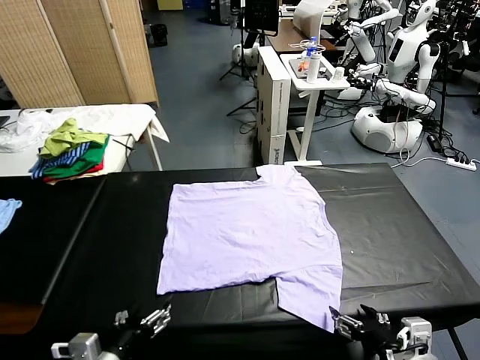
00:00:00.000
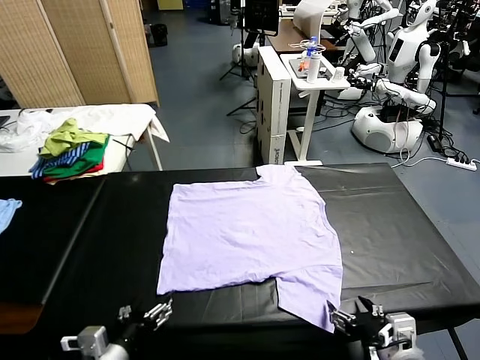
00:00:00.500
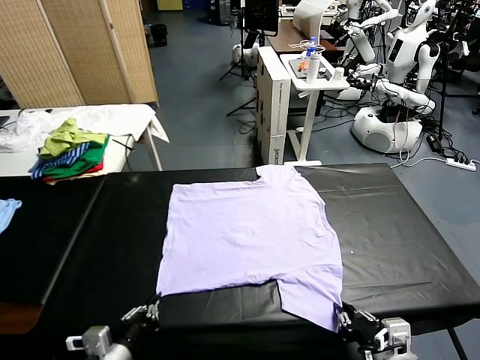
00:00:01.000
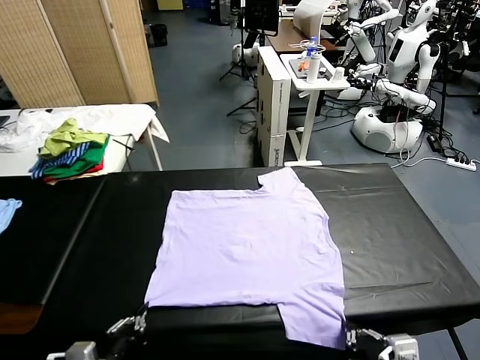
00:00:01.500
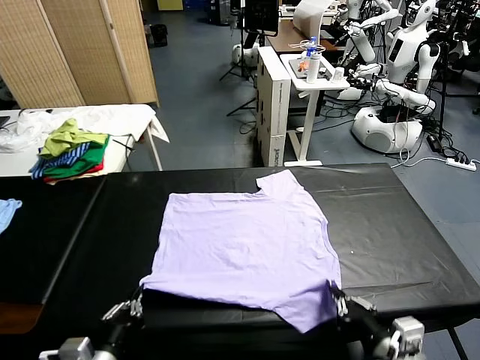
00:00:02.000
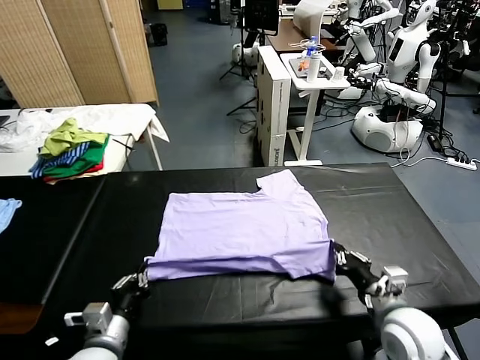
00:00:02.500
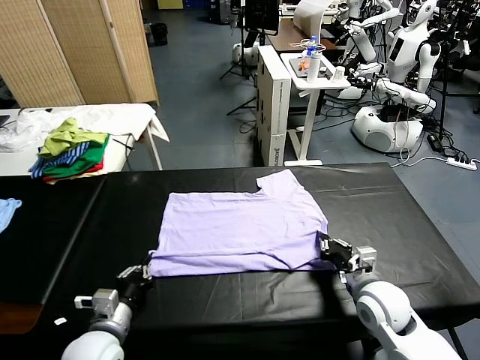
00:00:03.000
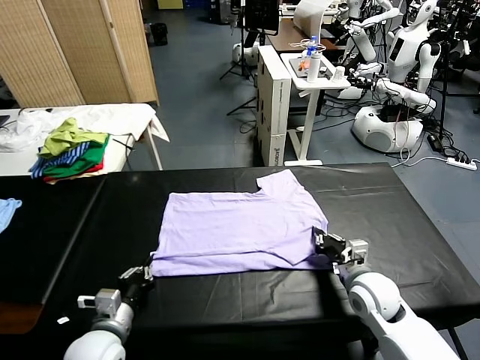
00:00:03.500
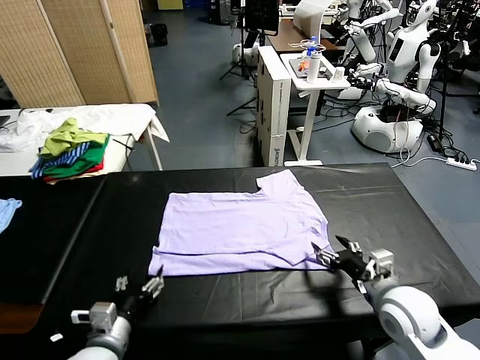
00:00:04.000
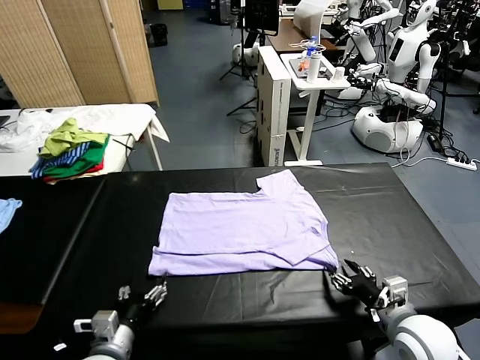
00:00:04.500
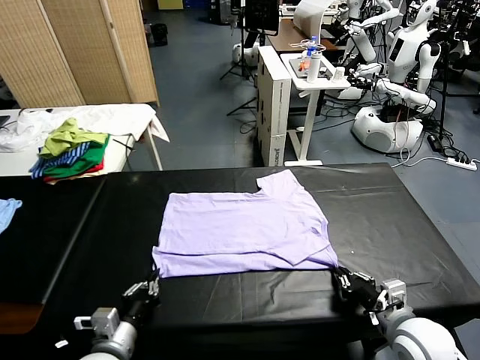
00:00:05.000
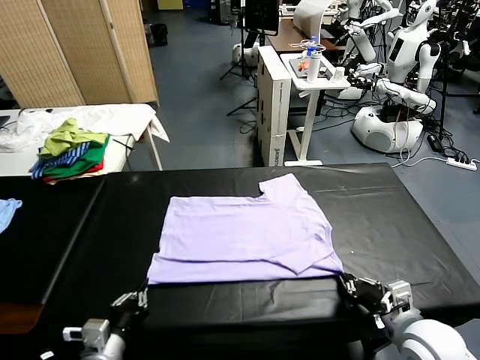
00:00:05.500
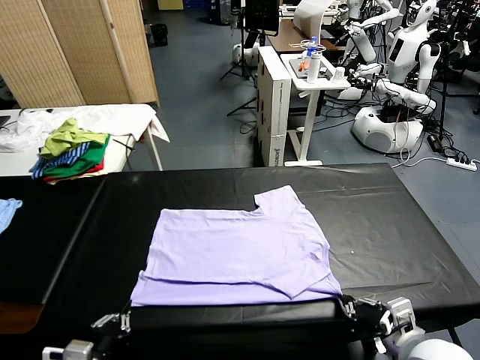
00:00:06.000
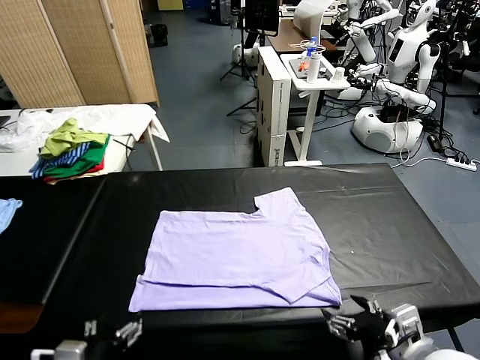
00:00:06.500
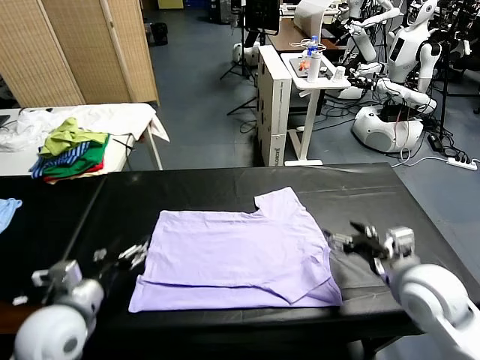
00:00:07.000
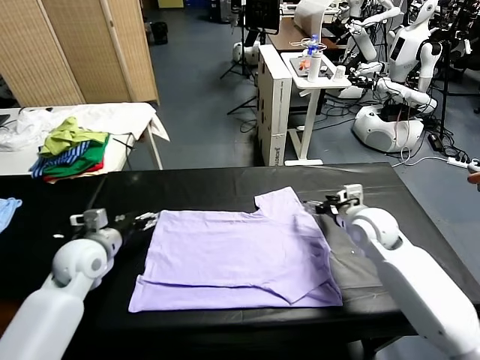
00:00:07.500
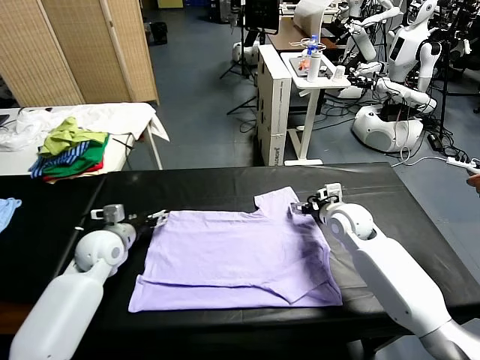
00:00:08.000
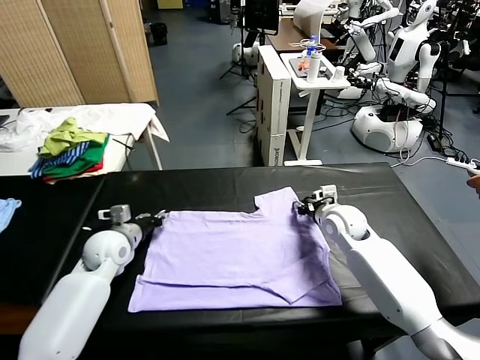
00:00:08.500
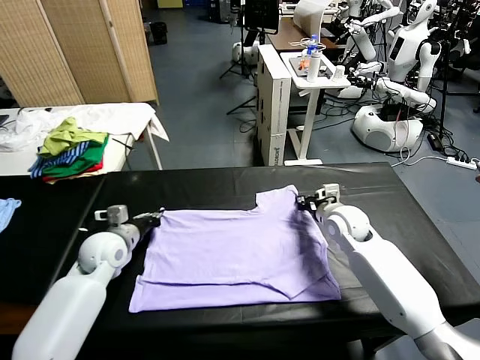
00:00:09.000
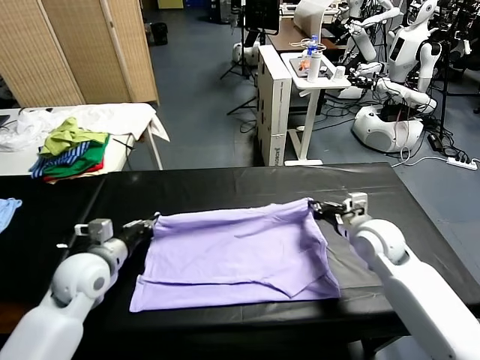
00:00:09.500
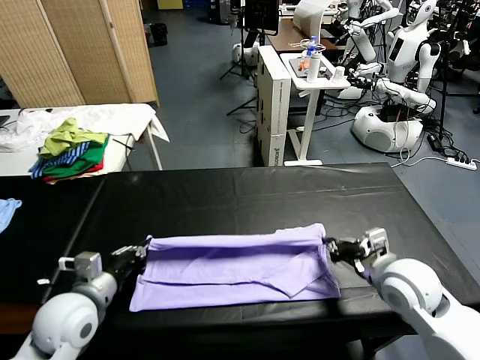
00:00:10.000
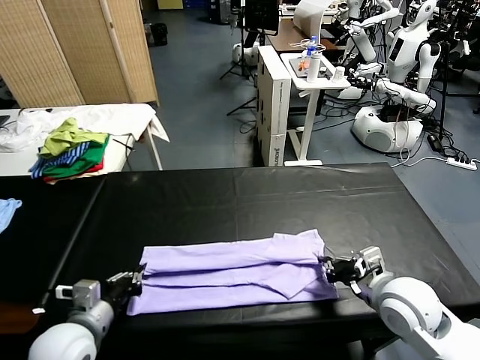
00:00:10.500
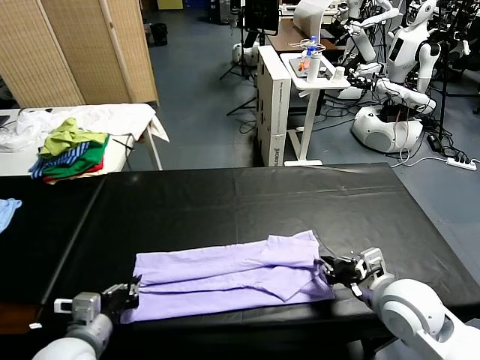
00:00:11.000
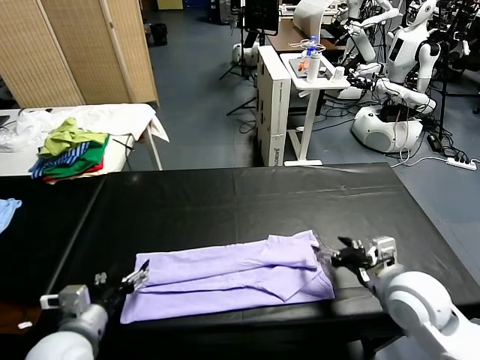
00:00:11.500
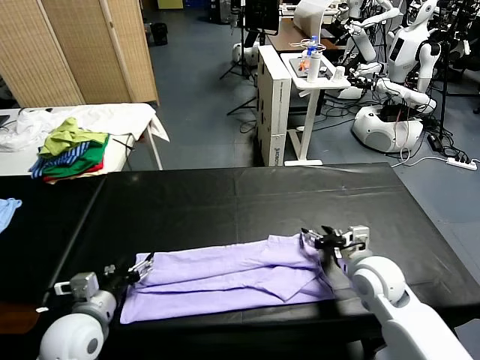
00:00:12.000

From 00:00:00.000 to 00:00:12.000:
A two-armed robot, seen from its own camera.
Task of the whole recording: fold and organize the clothes.
Step, from 00:00:00.000 to 00:00:01.000: use both grippers simultaneously to clamp the lower edge of the clothing fabric.
Step, from 00:00:01.500 to 00:00:03.500: use both grippers to drag the lower edge of the fabric forward and fold it over the upper edge.
Step, from 00:00:04.500 to 00:00:06.000: Drag the clothes downward with both gripper.
Step, from 00:00:06.500 to 00:00:08.500: use both grippers simultaneously to clamp the upper edge of the clothing fabric.
Step, from 00:00:09.000 to 00:00:11.000: use both grippers to drag the upper edge of the fabric backward and fold it over the lower edge.
From 00:00:02.000 to 00:00:04.000: The left gripper moves some 5 cm, and opens up, while the right gripper travels forward and back again, approximately 10 cm each way, and opens.
From 00:00:04.000 to 00:00:06.000: The left gripper is displaced backward by roughly 5 cm, and closes its fingers. The right gripper travels backward and upward by approximately 10 cm, and closes.
From 00:00:06.000 to 00:00:08.000: Both grippers move forward, some 30 cm. The left gripper opens its fingers.
From 00:00:08.000 to 00:00:10.000: Both grippers travel together backward, some 20 cm. The left gripper closes. Meanwhile the right gripper closes up.
From 00:00:10.000 to 00:00:12.000: The right gripper heads downward and forward, covering roughly 10 cm, and opens. The left gripper opens.

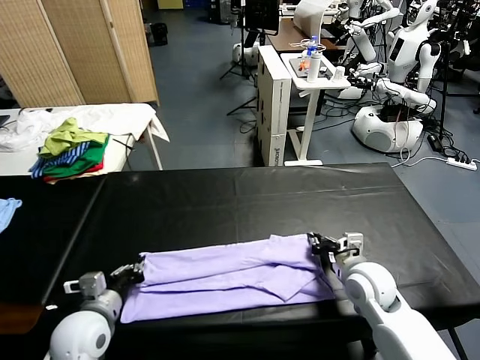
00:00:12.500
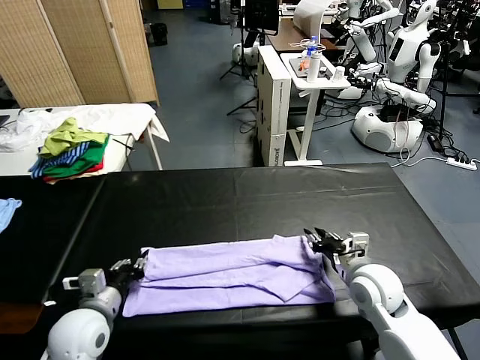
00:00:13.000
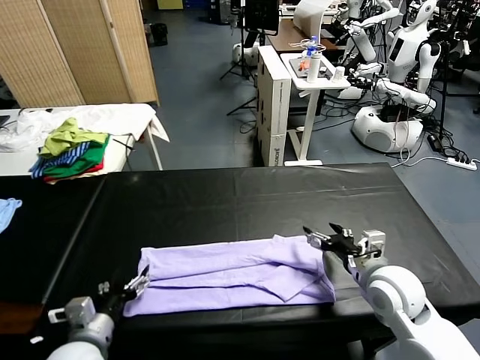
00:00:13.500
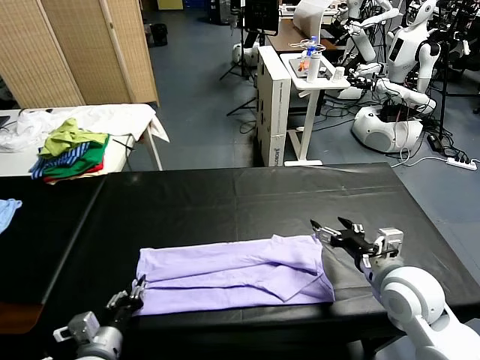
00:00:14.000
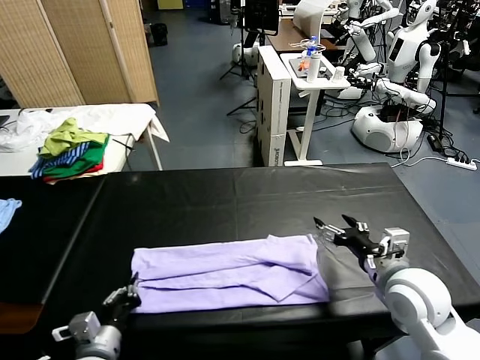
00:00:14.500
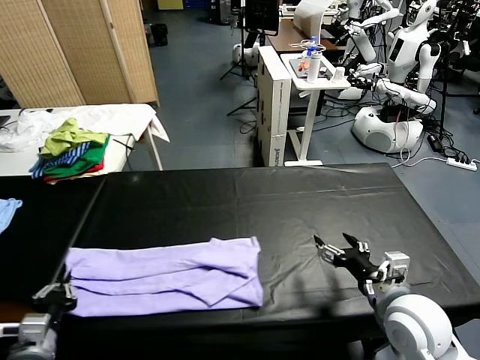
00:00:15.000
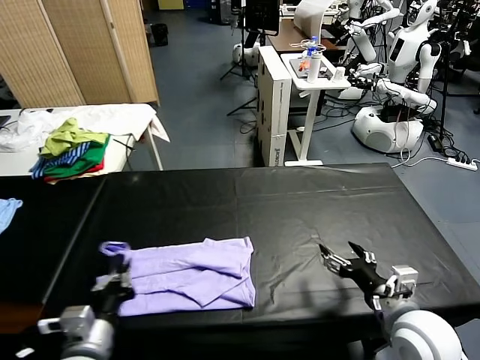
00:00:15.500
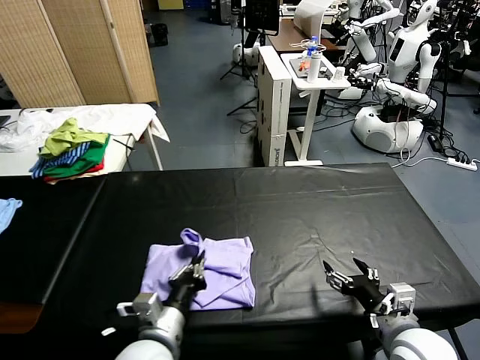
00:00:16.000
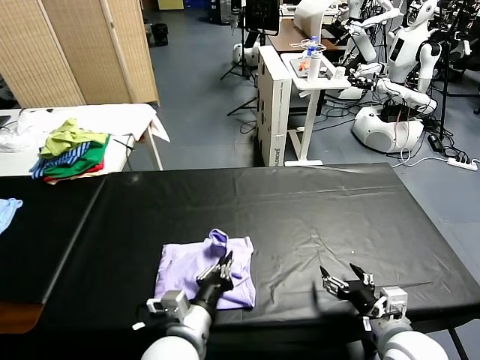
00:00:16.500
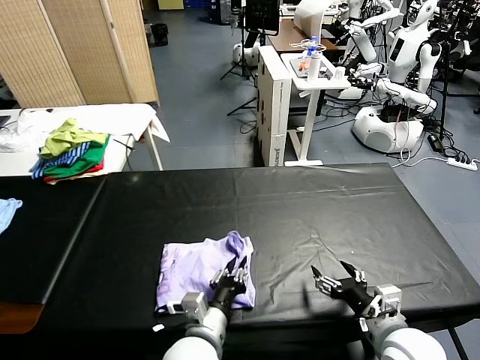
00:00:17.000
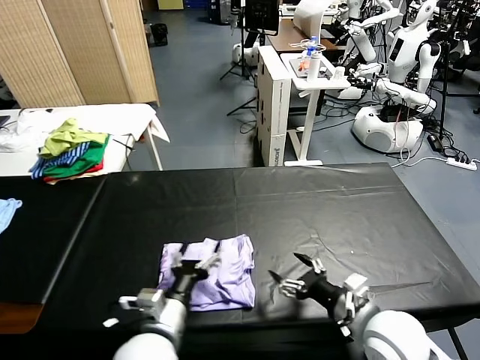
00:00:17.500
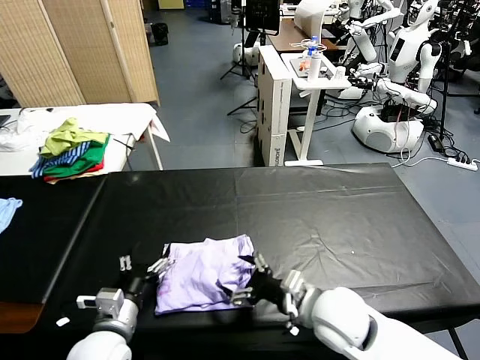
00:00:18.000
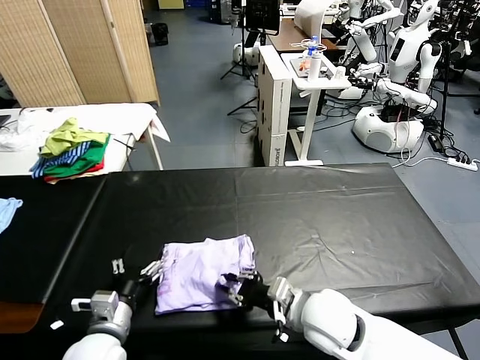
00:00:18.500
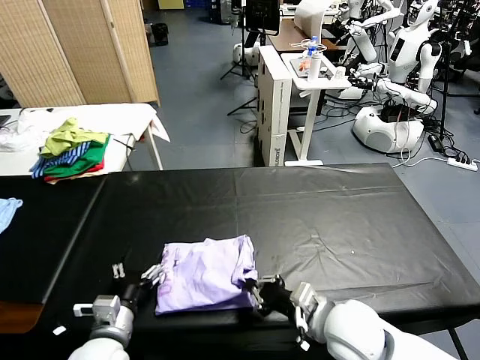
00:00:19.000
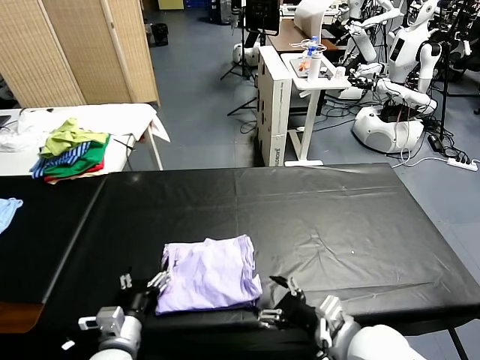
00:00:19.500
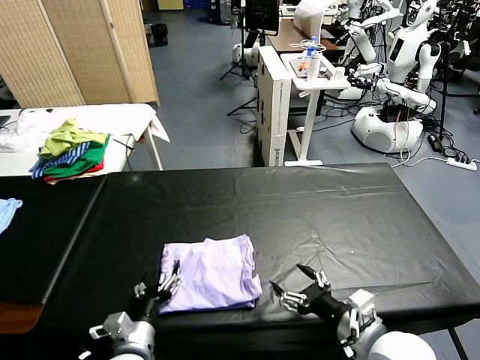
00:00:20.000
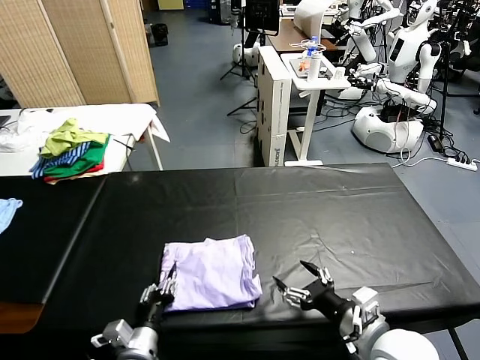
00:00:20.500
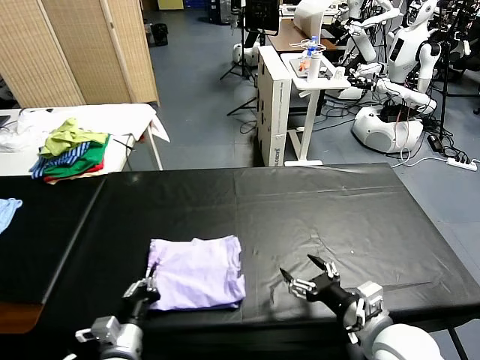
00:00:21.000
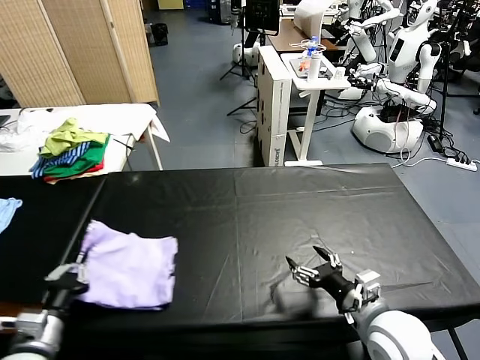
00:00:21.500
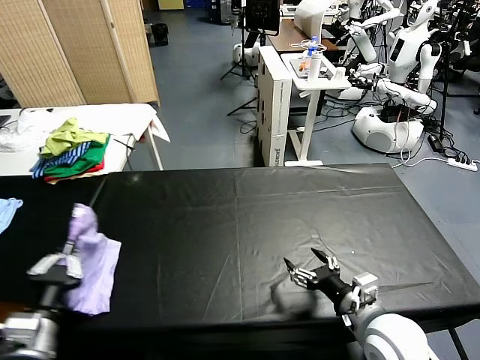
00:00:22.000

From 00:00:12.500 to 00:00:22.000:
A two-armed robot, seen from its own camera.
Task of the whole recording: fold and organize the clothes.
Step, from 00:00:12.500 to 00:00:14.000: use the left gripper to clamp the left edge of the fabric.
Step, from 00:00:14.500 to 00:00:17.000: use the left gripper to drag the left edge of the fabric to the left and folds it over the right edge.
From 00:00:12.500 to 00:00:14.500: The left gripper moves backward, roughly 10 cm, and opens, then closes again. The right gripper goes approximately 10 cm upward and backward, and opens up.
From 00:00:14.500 to 00:00:16.500: The left gripper is displaced to the right by approximately 15 cm; the right gripper moves backward and downward, roughly 10 cm.
From 00:00:16.500 to 00:00:18.000: The right gripper shifts about 15 cm to the left and forward, while the left gripper travels to the left by some 15 cm, and opens its fingers.
From 00:00:18.000 to 00:00:20.000: The right gripper goes some 10 cm to the right and backward, and closes, then opens again, while the left gripper is displaced downward by roughly 5 cm.
From 00:00:20.000 to 00:00:22.000: The left gripper travels upward and to the left by about 20 cm, and closes its fingers.

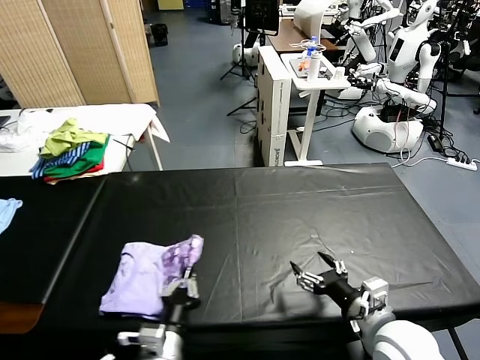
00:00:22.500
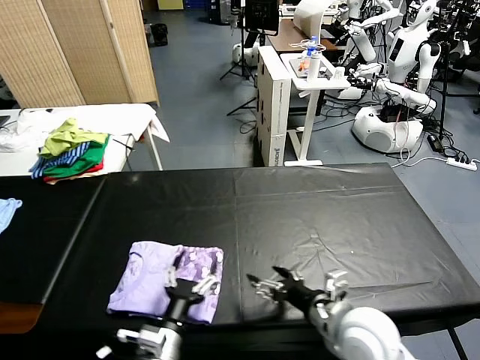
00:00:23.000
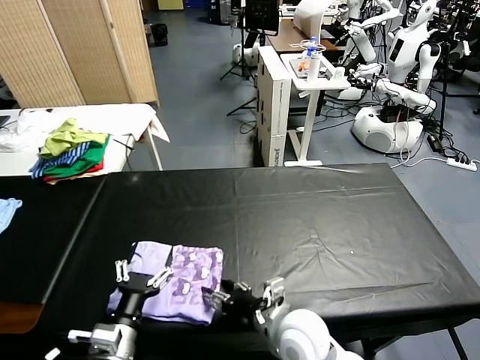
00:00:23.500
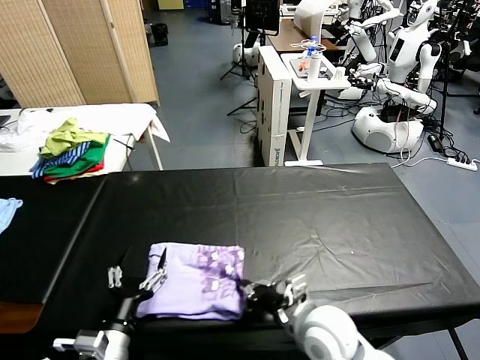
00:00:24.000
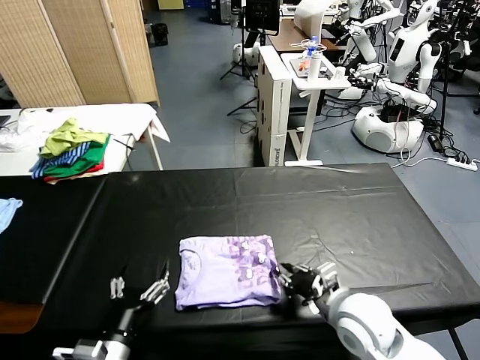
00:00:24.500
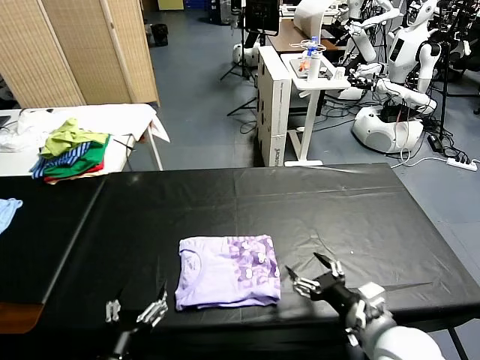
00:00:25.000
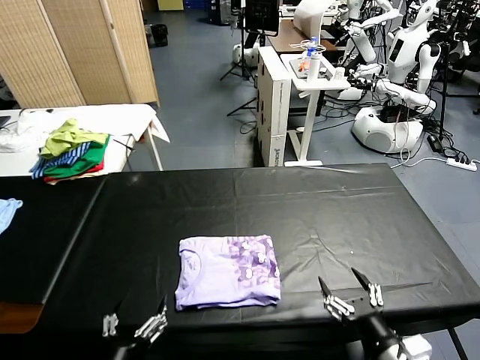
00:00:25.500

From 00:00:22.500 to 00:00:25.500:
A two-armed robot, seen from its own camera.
Task of the whole recording: fold and organize the clothes.
Step, from 00:00:23.500 to 00:00:24.500: Drag the clothes to the center of the table.
From 00:00:22.500 to 00:00:24.000: The grippers both shift to the left by some 10 cm. The right gripper closes. Meanwhile the left gripper opens.
From 00:00:24.000 to 00:00:25.500: The right gripper shifts about 20 cm to the right and backward, and opens up; the left gripper is displaced backward by roughly 10 cm.
